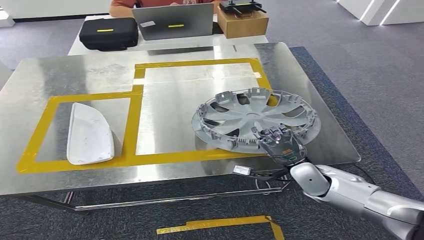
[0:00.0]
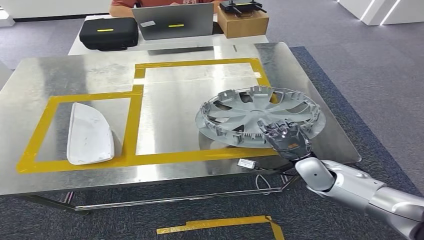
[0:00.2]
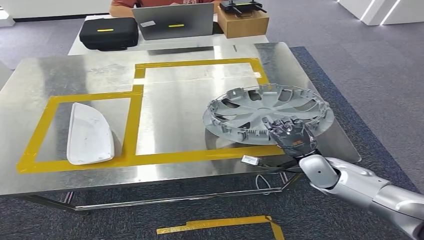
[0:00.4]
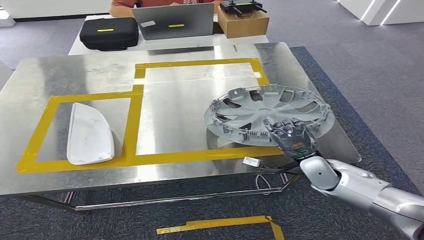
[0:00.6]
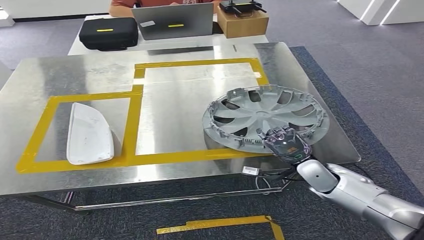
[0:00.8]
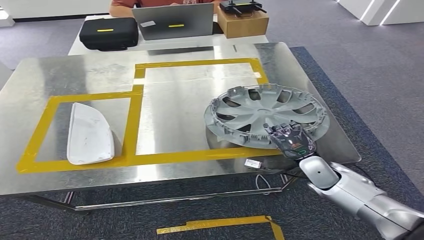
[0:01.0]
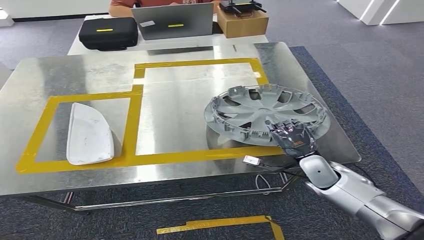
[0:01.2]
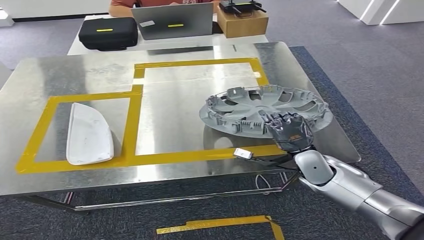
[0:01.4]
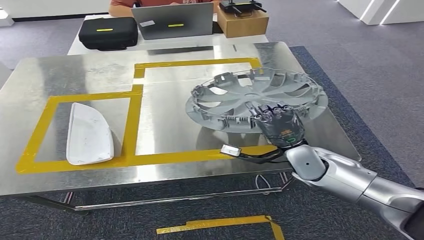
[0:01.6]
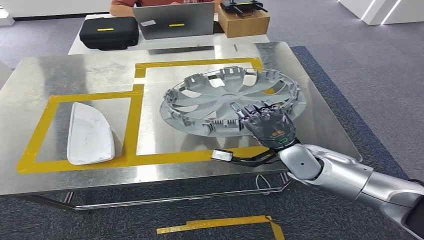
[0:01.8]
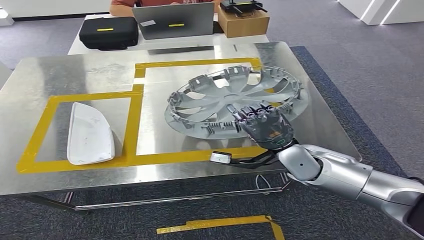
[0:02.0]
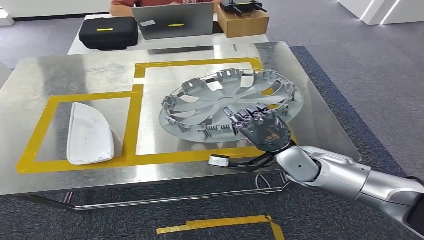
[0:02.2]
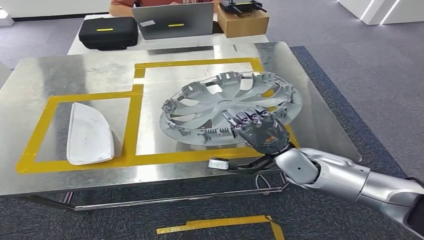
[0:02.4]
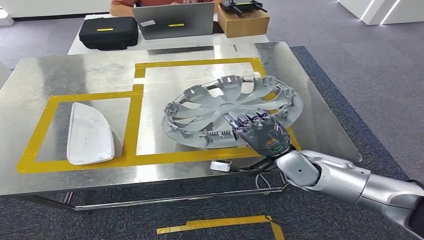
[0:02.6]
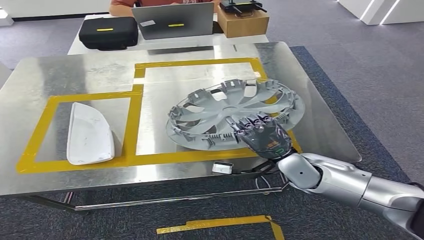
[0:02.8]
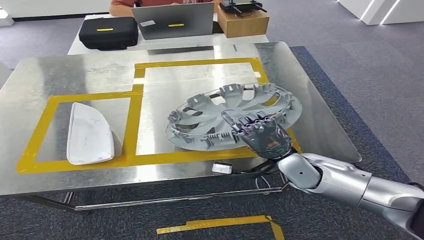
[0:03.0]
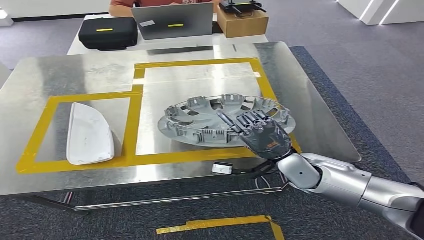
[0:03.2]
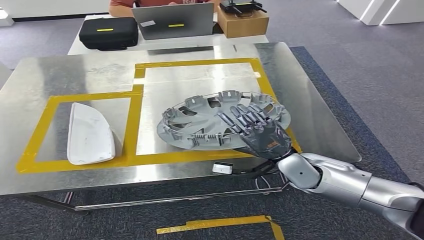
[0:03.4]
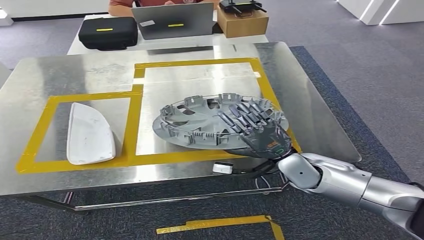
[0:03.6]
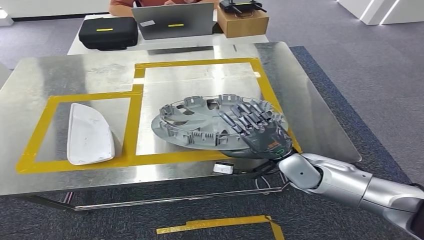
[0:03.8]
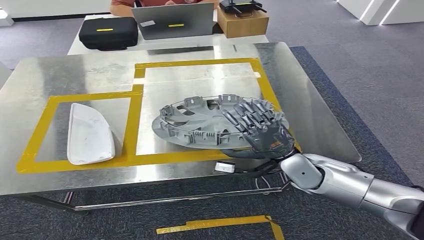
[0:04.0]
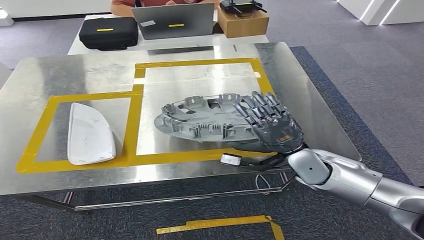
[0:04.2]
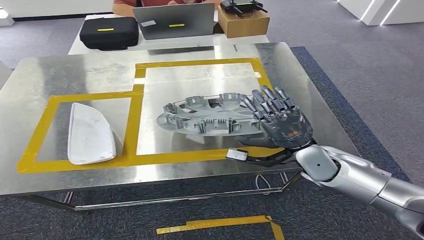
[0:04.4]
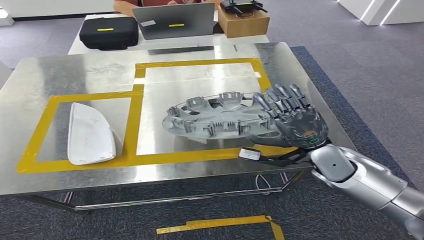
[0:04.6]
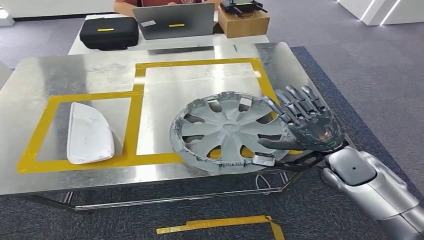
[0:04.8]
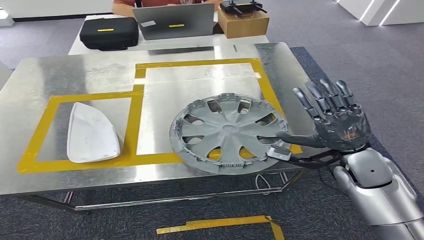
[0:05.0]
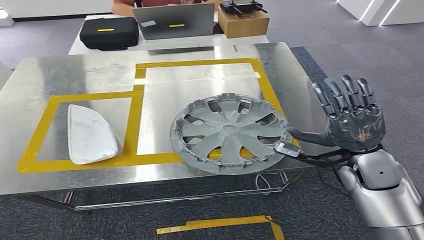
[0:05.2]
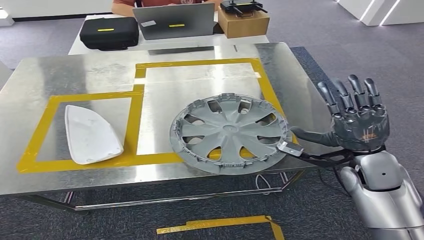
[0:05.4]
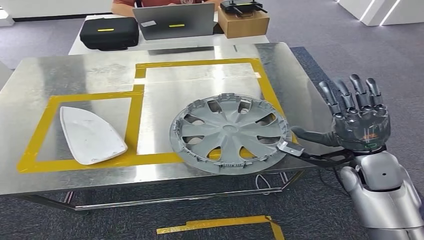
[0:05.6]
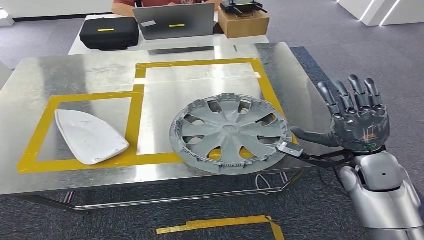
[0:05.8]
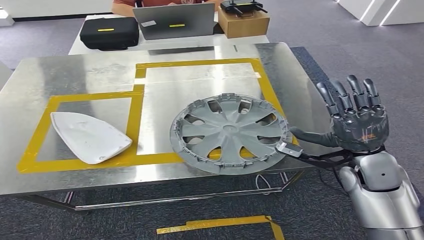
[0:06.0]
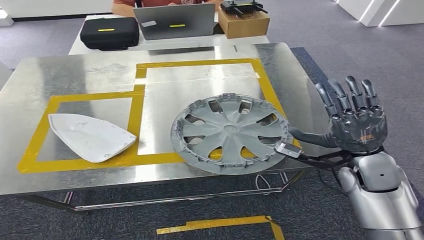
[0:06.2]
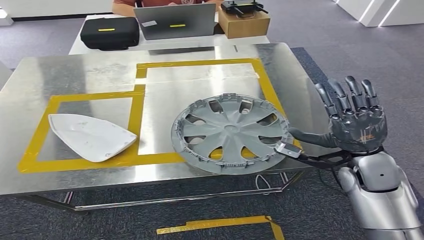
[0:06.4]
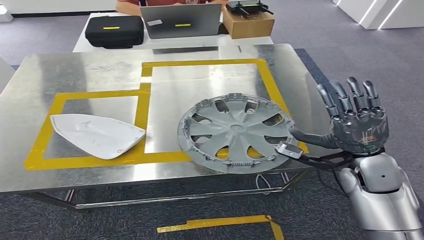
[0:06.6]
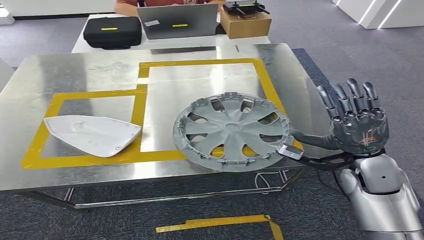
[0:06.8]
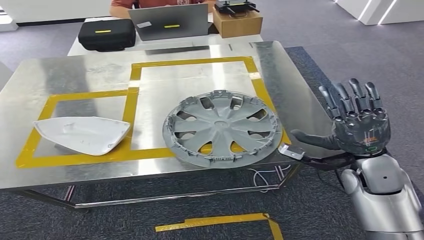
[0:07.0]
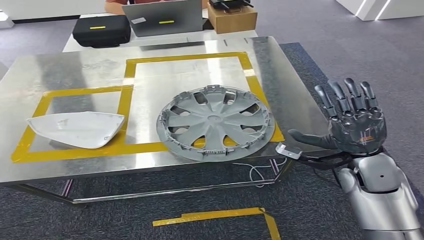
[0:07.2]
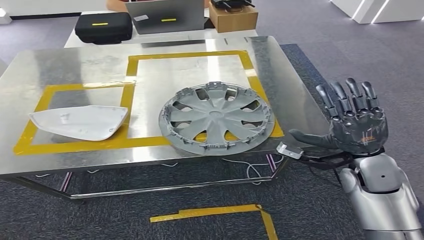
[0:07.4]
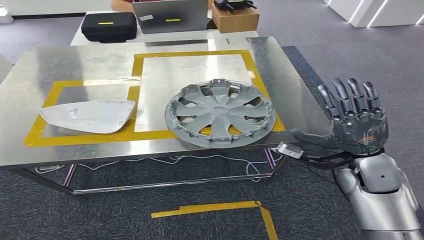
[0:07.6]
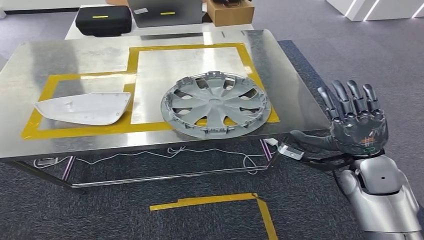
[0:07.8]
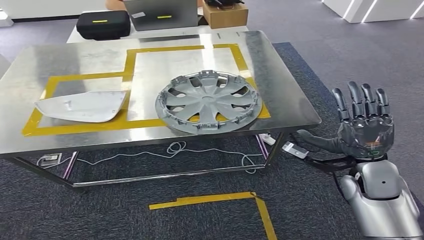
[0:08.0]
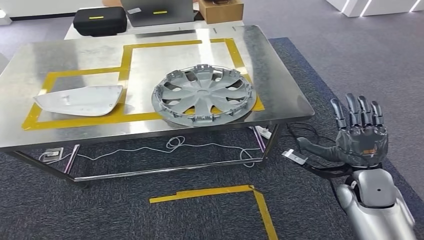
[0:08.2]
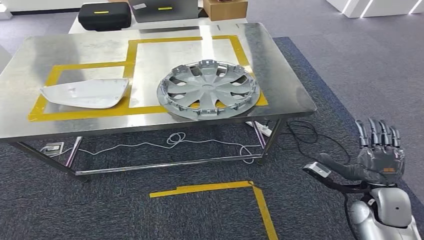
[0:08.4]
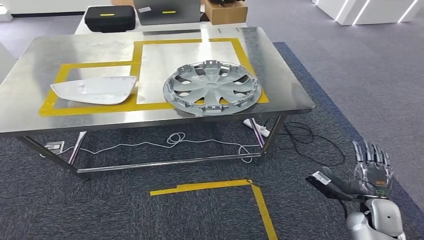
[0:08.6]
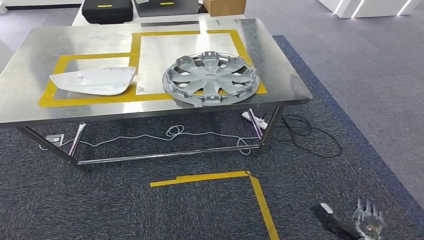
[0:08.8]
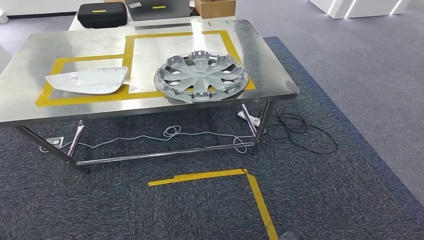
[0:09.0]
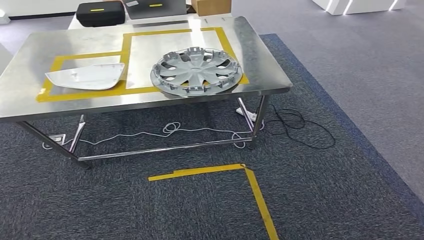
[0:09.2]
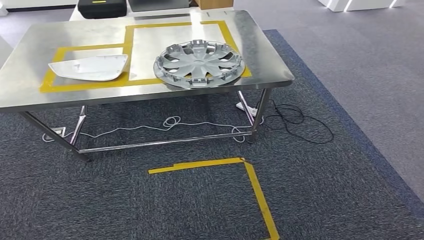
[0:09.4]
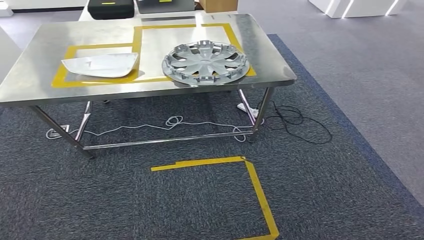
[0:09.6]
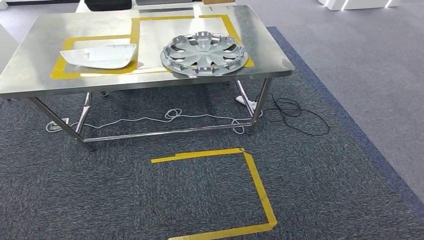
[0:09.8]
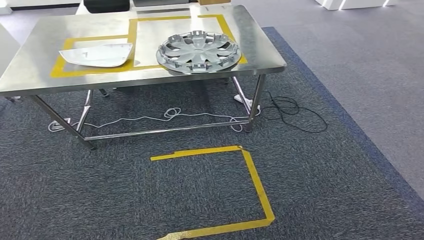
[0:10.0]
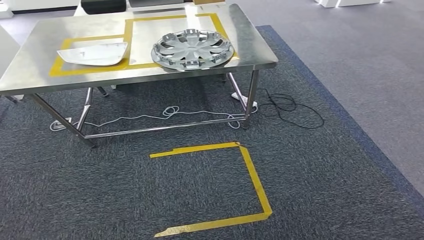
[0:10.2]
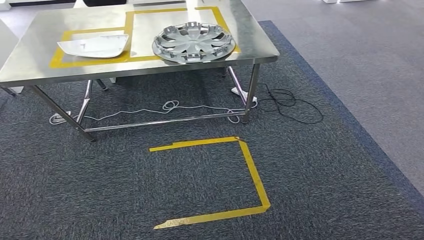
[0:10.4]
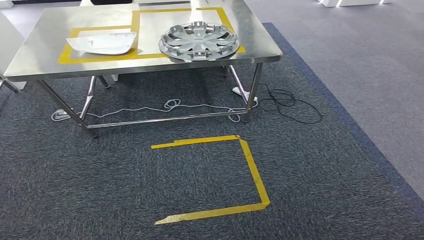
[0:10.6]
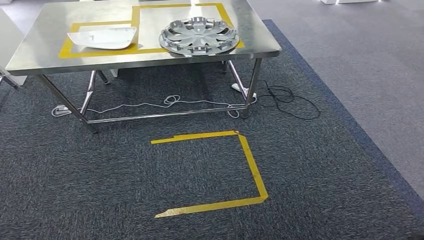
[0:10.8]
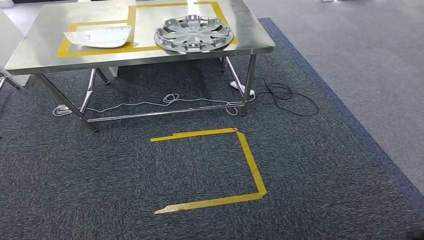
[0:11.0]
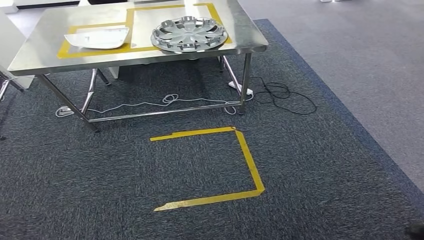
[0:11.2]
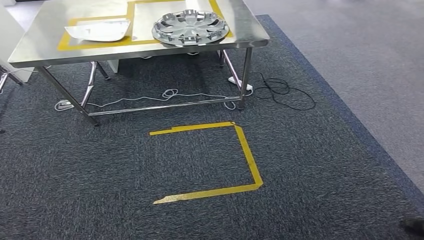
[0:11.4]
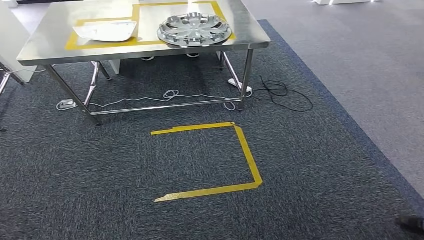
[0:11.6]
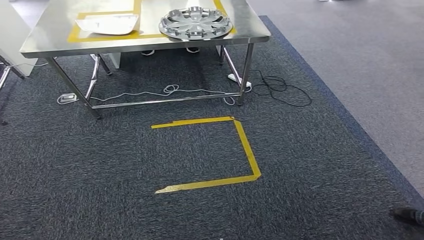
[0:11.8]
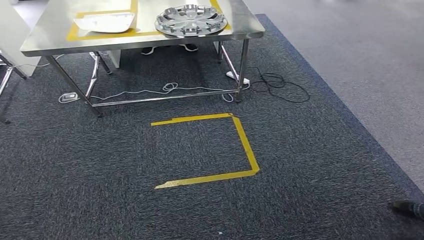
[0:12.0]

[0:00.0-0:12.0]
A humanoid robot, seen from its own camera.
Step, 0:00.0 to 0:09.0: Insert the small component into the corresponding slot on the workbench.
0:00.0 to 0:01.6: The right hand shifts about 5 cm upward.
0:01.6 to 0:04.4: There are only small adjustments of the hands.
0:04.4 to 0:06.0: The right hand moves to the right, about 10 cm.

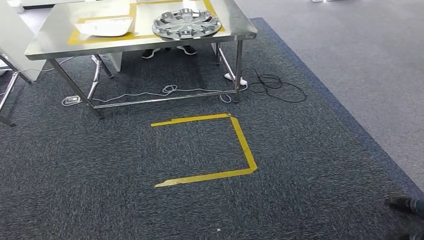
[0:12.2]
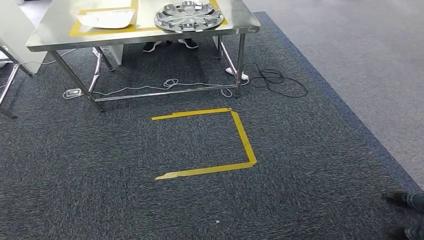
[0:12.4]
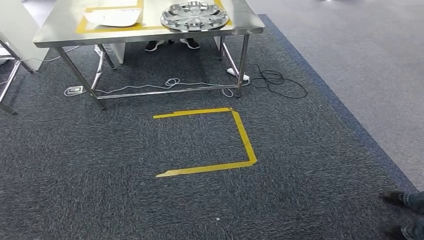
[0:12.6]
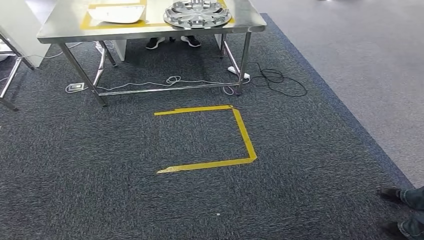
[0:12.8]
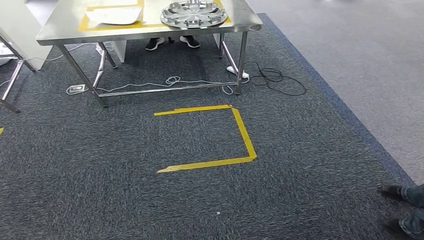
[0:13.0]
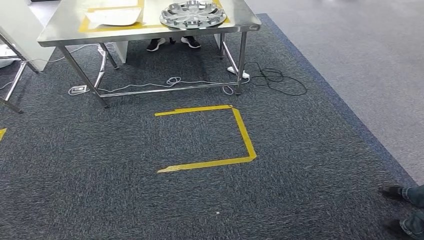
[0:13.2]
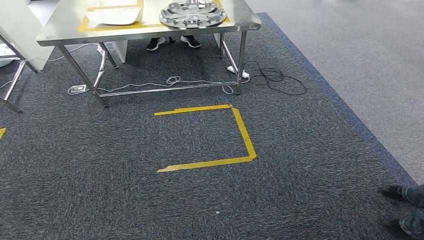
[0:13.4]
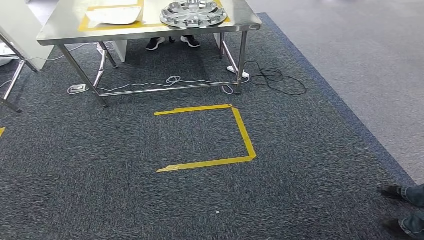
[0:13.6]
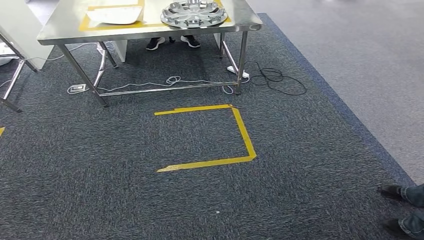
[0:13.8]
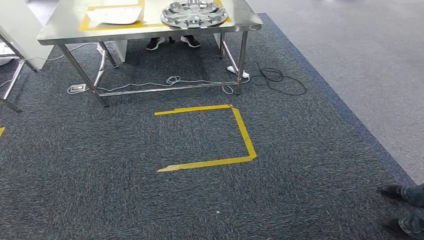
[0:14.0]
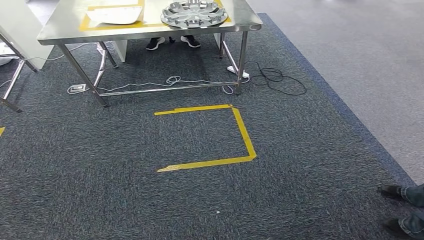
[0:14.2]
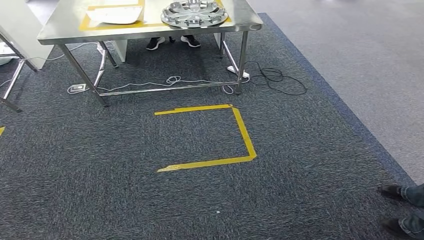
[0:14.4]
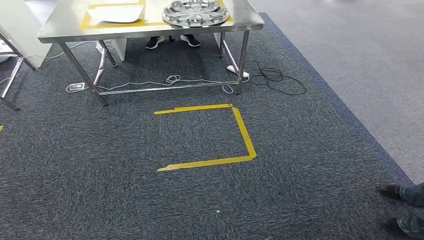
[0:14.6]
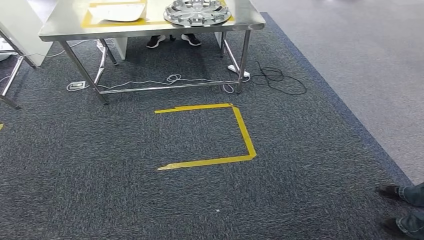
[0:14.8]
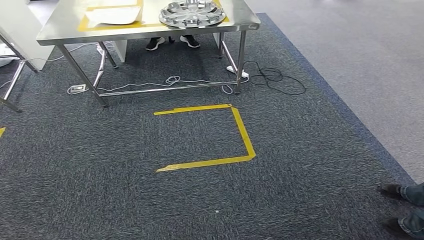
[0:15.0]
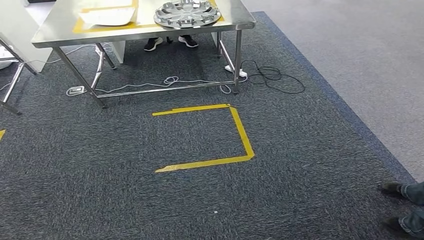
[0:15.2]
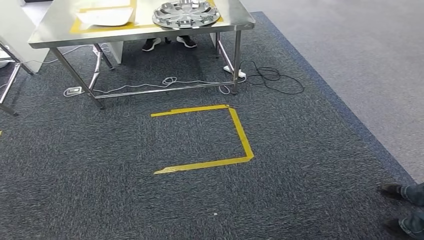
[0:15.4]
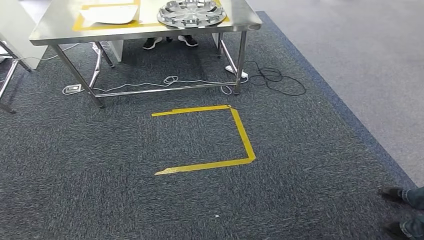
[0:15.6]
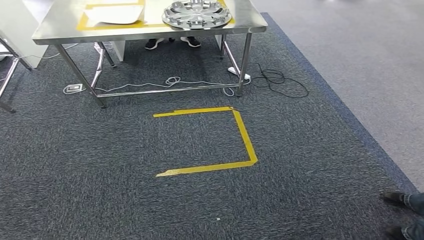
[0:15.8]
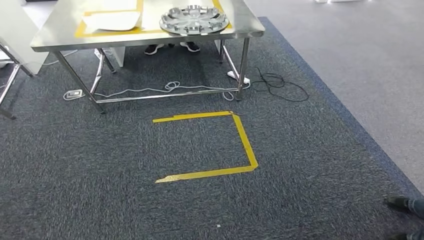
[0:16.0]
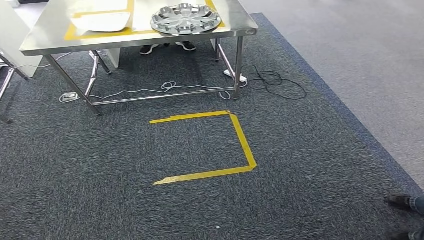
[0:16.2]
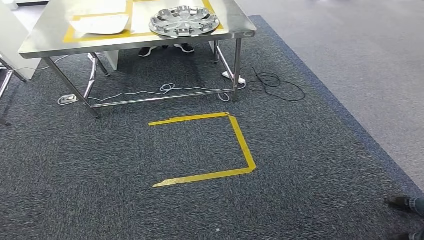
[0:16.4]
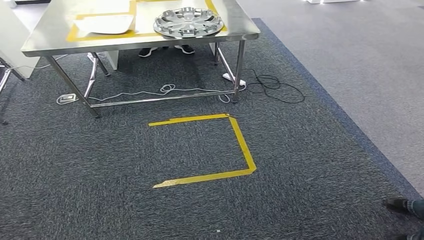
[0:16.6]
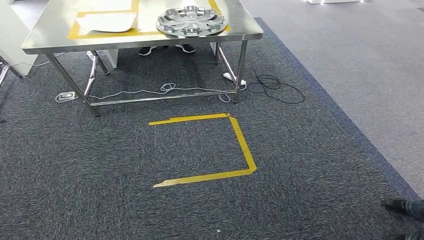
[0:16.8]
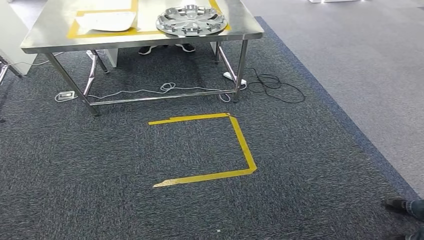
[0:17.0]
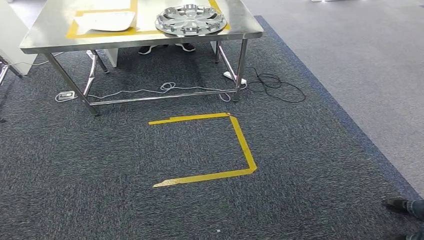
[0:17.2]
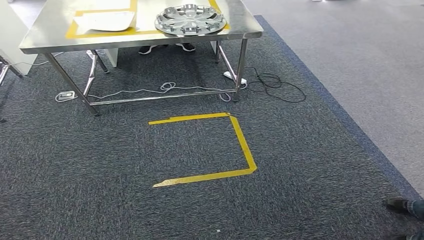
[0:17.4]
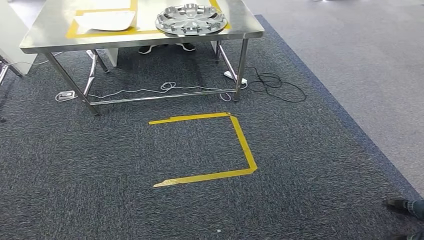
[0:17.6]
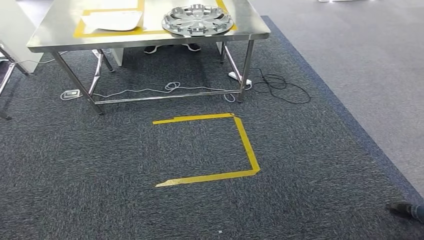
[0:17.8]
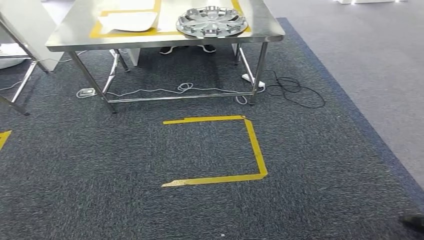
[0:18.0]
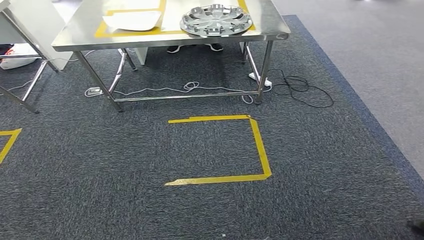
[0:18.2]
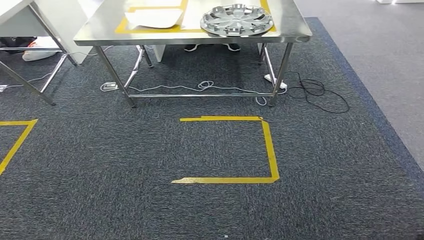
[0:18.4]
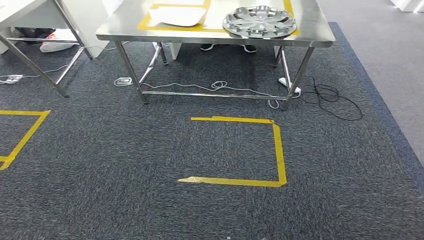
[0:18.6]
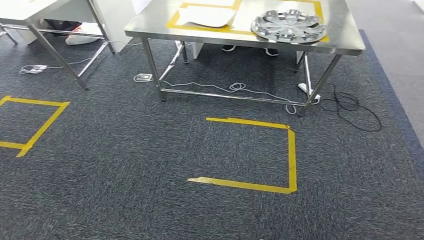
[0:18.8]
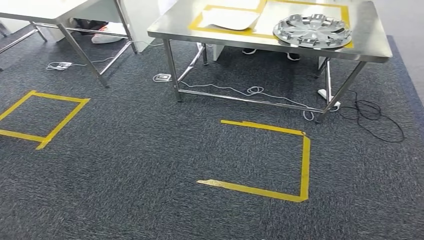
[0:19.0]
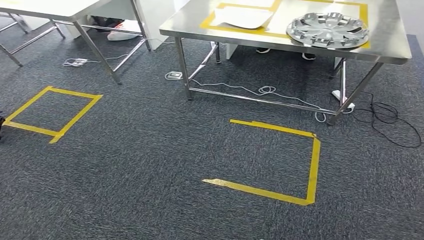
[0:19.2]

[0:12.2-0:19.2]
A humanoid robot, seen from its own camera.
0:12.2 to 0:13.6: The hands make only small movements.
0:13.6 to 0:17.8: The two hands keep their place.
